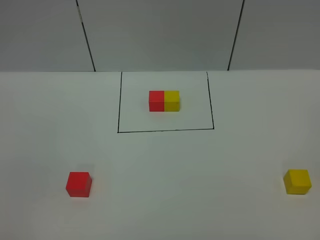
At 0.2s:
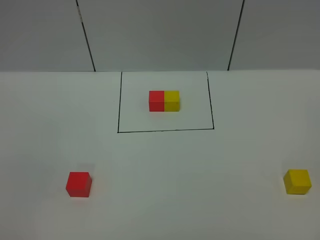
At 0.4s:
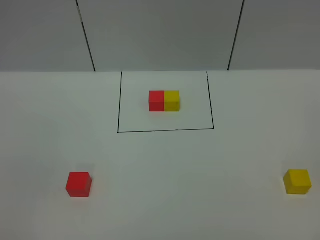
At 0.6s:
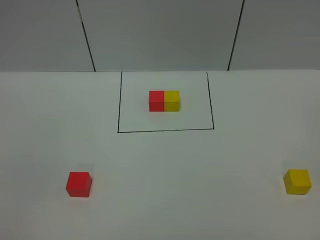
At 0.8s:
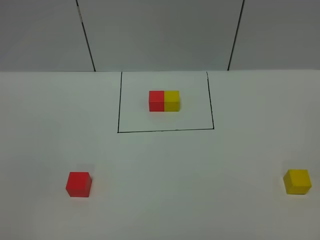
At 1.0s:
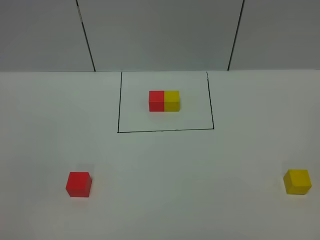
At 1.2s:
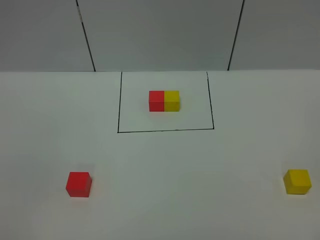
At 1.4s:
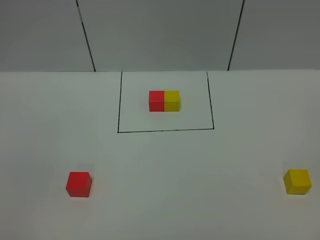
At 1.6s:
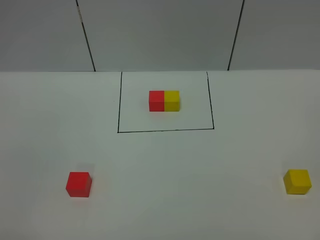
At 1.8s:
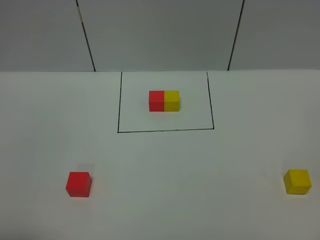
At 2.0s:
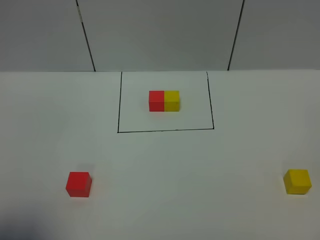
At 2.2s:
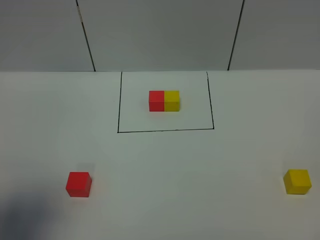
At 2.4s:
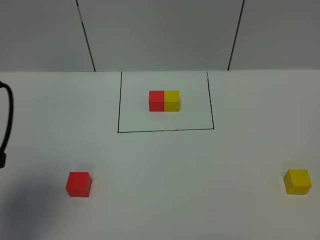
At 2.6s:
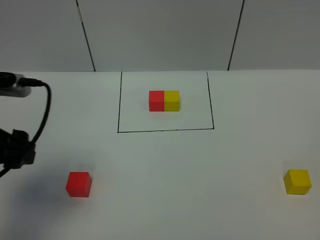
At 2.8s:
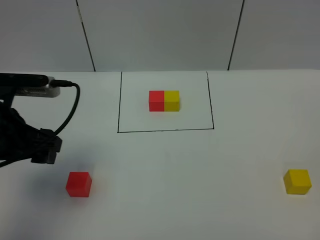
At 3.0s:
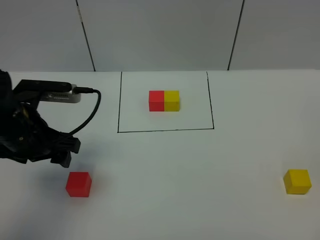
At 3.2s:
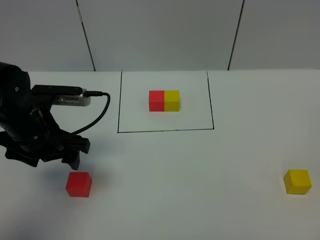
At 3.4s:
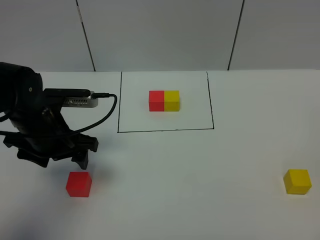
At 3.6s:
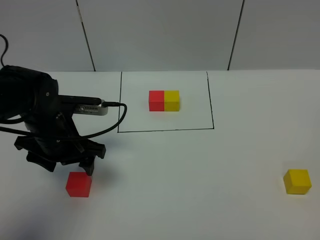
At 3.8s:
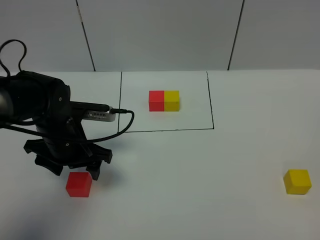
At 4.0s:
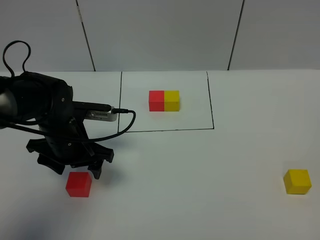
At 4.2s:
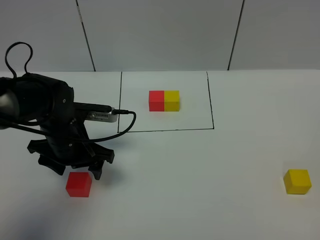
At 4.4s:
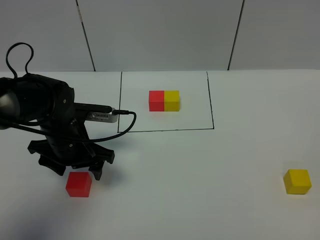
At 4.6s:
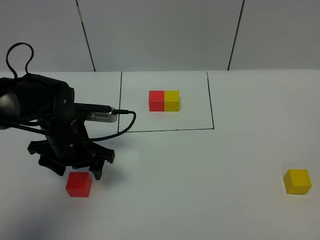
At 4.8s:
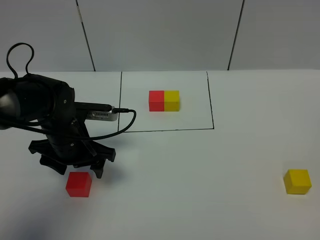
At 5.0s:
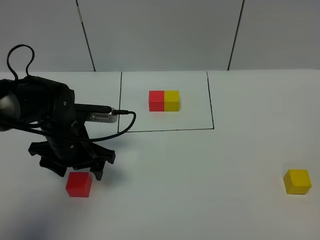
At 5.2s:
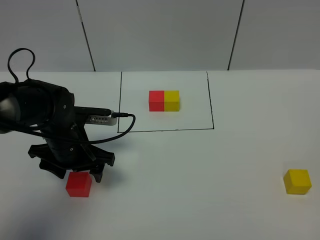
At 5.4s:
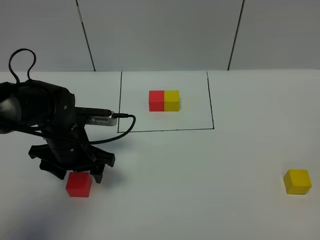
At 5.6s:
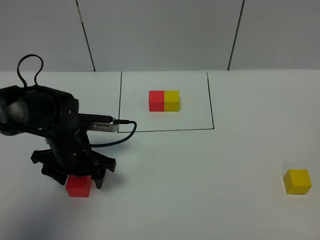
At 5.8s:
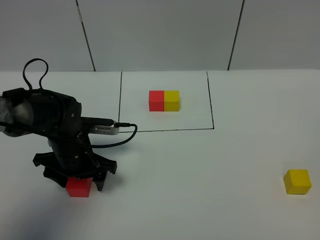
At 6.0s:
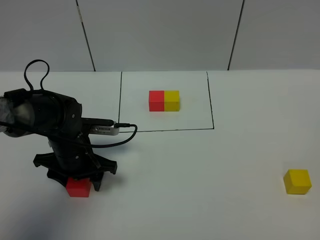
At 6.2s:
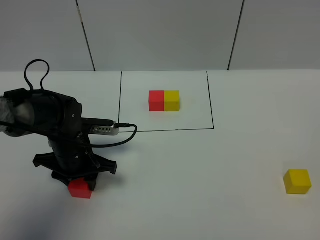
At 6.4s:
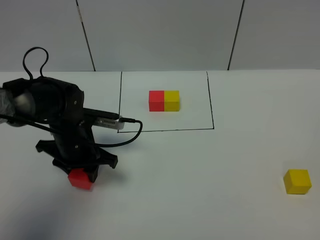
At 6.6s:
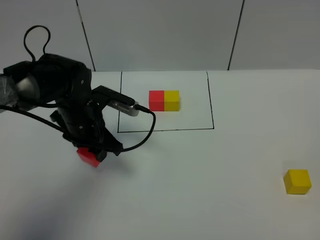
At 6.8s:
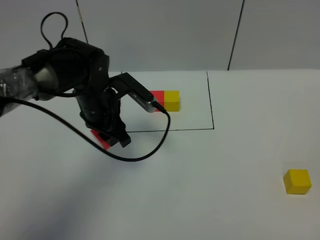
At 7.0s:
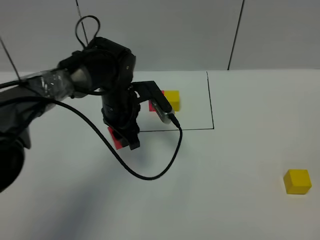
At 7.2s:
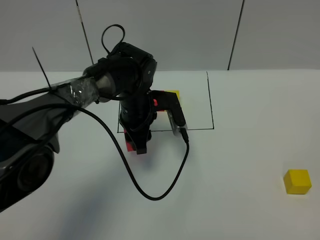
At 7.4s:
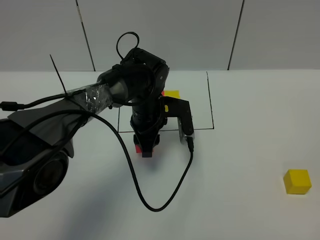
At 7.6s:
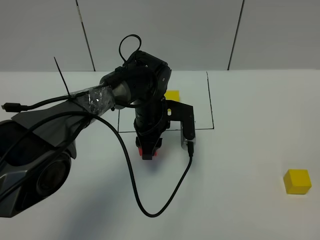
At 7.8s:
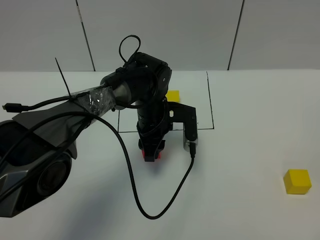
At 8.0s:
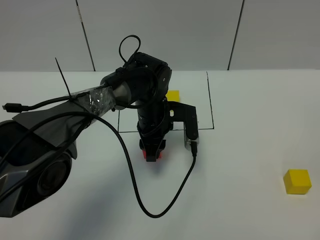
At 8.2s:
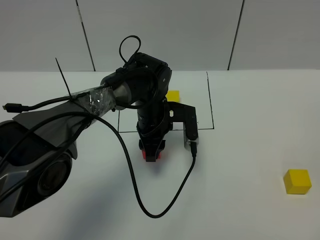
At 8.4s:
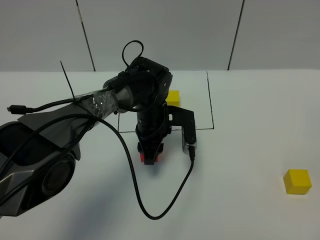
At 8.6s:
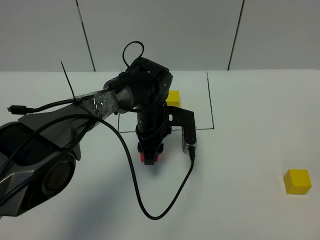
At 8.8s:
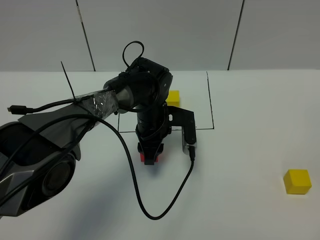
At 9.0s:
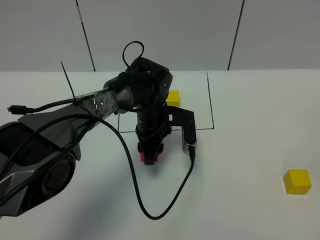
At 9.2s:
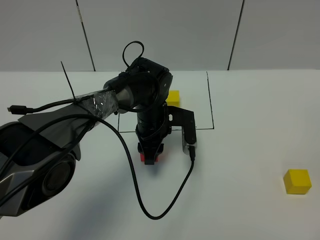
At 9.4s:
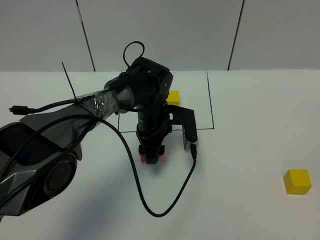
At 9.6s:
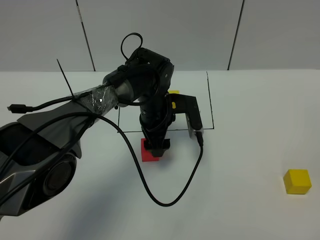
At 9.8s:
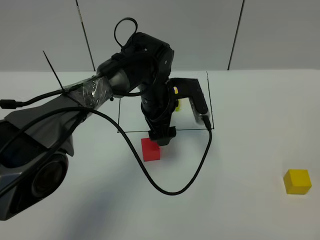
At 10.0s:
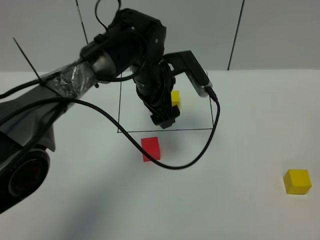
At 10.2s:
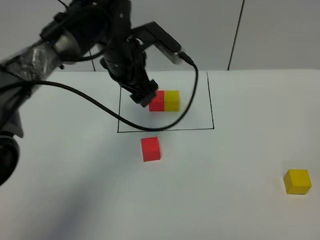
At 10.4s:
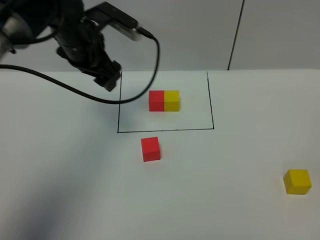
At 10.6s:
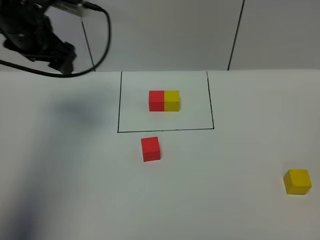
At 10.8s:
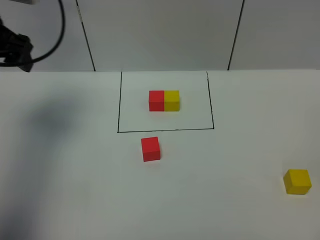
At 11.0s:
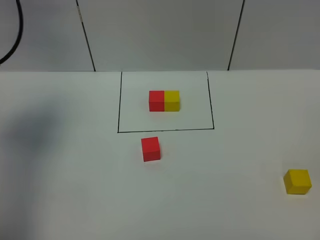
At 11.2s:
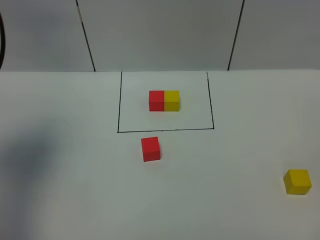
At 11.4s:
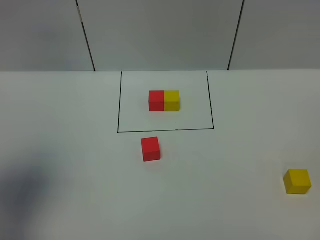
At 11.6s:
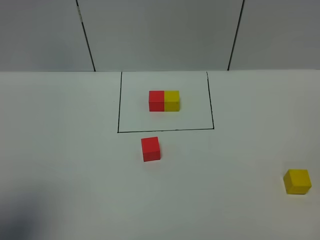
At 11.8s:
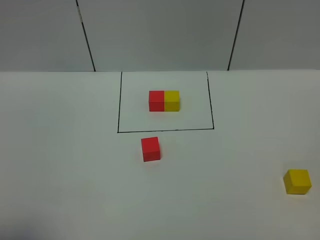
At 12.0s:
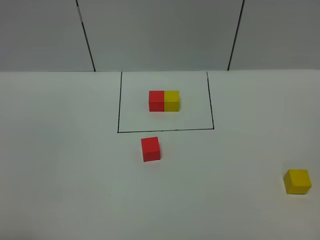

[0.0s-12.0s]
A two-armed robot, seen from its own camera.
Task of the whole recording: According to the building block template in front, assemble the scattered blocks together.
Step, 2.4s to 9.4s: Put the red cube in the center of the table.
1.6s to 3.0s: The left gripper moves forward, roughly 25 cm.
3.0s to 4.4s: The left gripper heads downward, covering some 10 cm.
4.4s to 6.0s: The left gripper closes up.
6.0s to 7.6s: The left gripper moves to the right and forward, approximately 15 cm, and closes up.
7.6s to 9.0s: The grippers move only a little.
9.0s to 10.4s: The left gripper travels upward and to the left by some 20 cm, and opens its fingers.
10.4s to 12.0s: The left gripper goes some 40 cm backward.

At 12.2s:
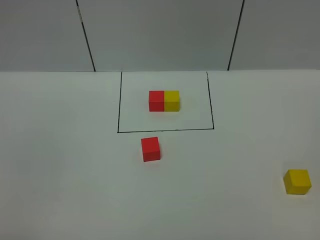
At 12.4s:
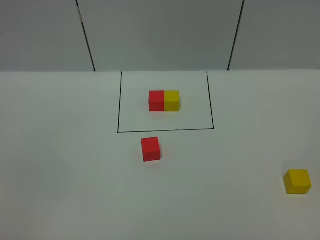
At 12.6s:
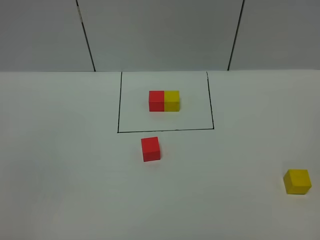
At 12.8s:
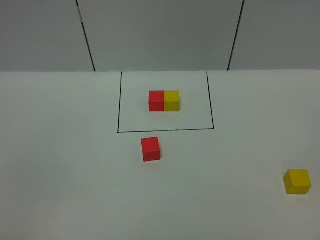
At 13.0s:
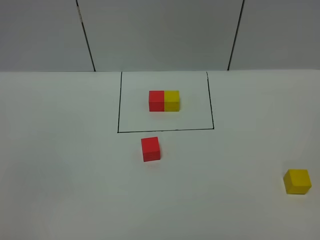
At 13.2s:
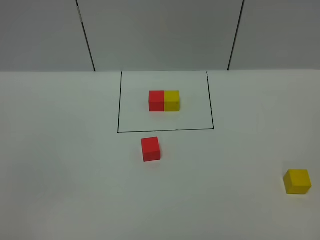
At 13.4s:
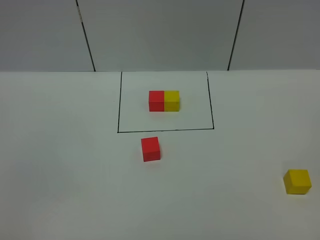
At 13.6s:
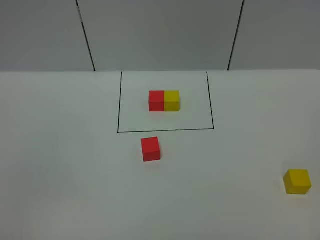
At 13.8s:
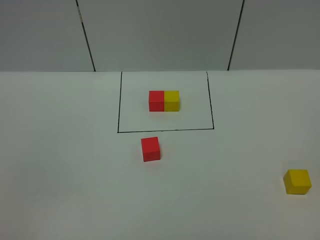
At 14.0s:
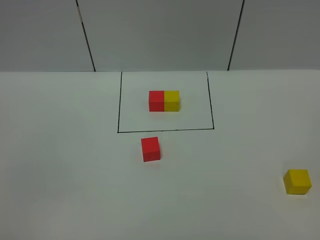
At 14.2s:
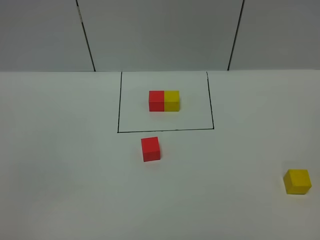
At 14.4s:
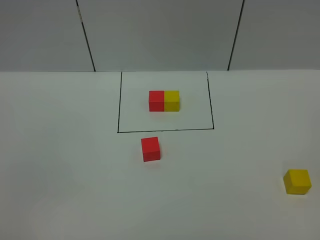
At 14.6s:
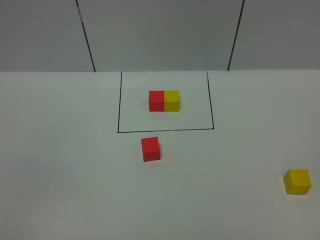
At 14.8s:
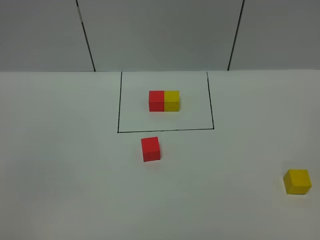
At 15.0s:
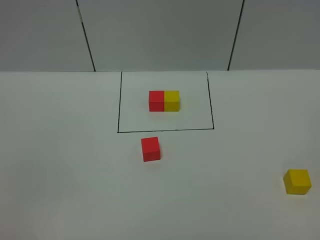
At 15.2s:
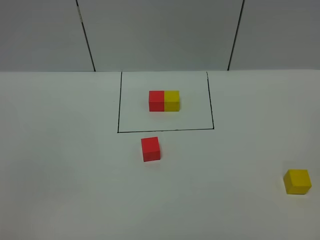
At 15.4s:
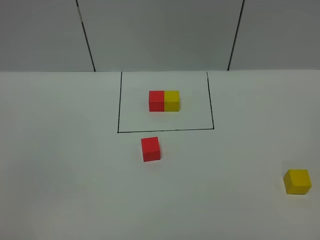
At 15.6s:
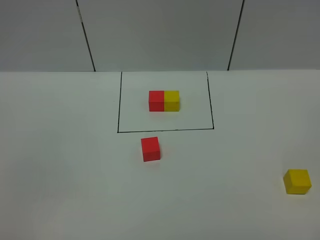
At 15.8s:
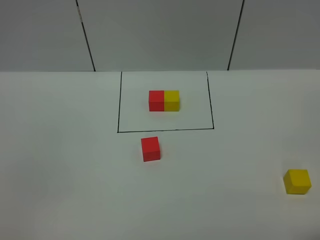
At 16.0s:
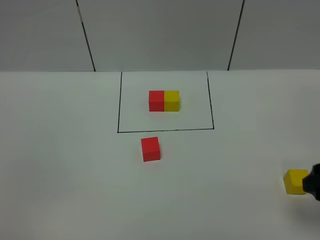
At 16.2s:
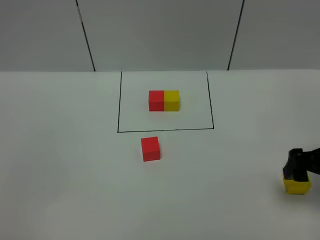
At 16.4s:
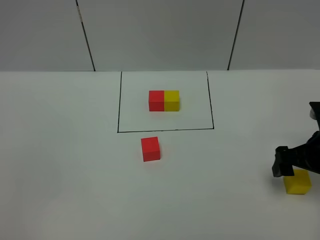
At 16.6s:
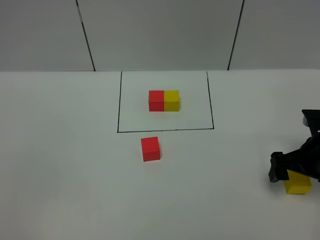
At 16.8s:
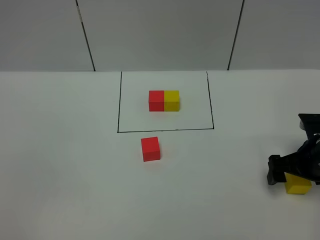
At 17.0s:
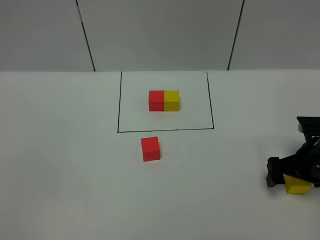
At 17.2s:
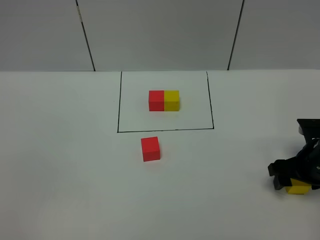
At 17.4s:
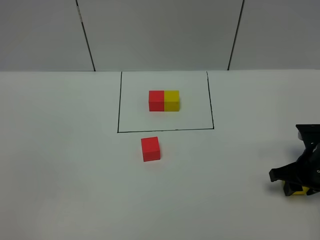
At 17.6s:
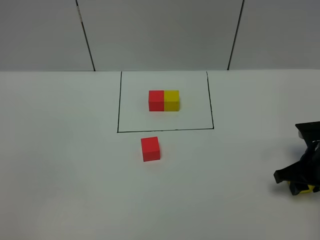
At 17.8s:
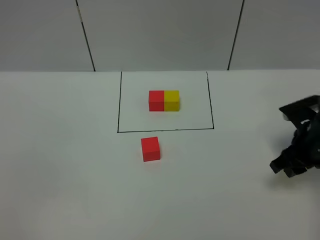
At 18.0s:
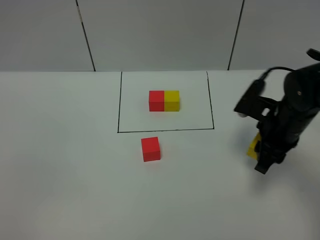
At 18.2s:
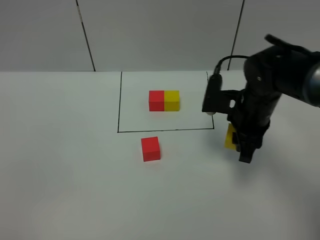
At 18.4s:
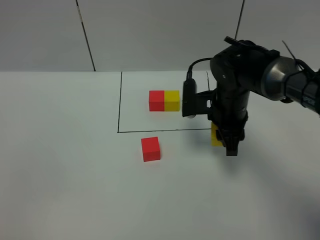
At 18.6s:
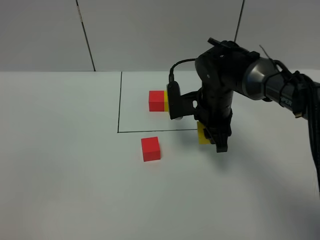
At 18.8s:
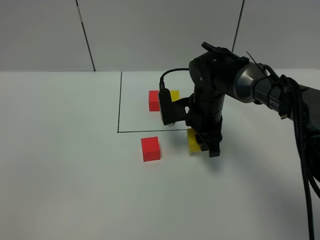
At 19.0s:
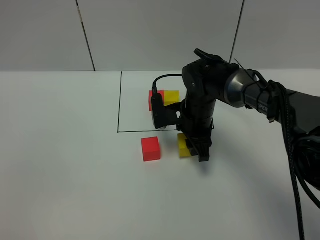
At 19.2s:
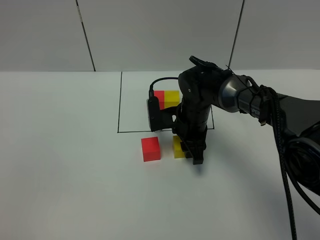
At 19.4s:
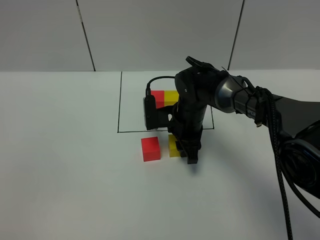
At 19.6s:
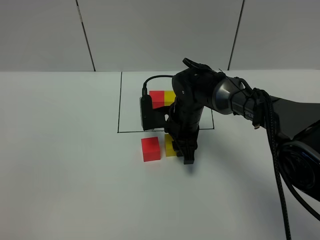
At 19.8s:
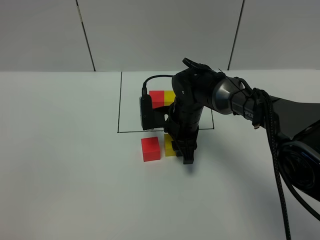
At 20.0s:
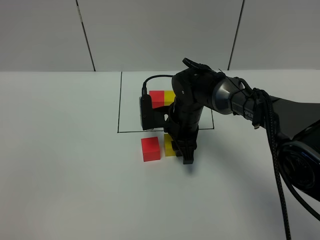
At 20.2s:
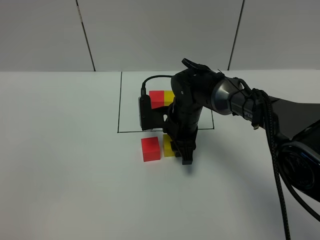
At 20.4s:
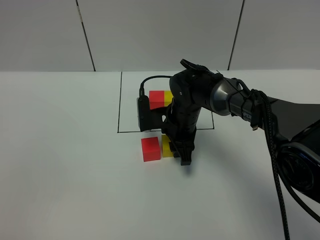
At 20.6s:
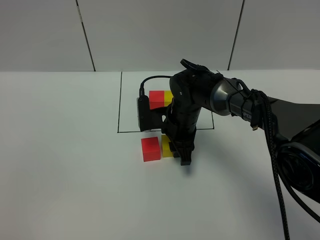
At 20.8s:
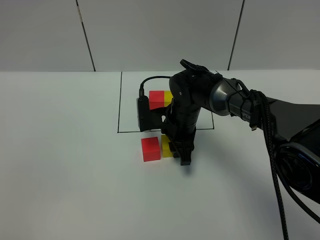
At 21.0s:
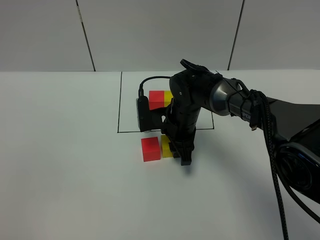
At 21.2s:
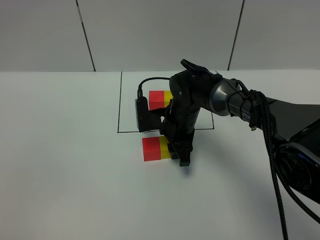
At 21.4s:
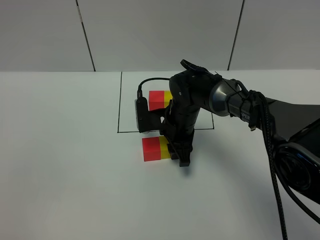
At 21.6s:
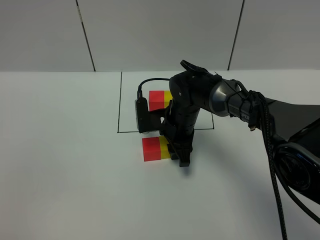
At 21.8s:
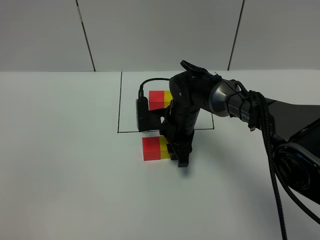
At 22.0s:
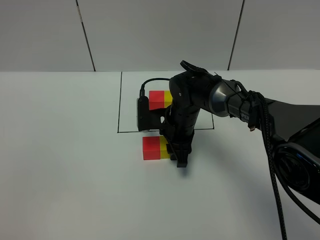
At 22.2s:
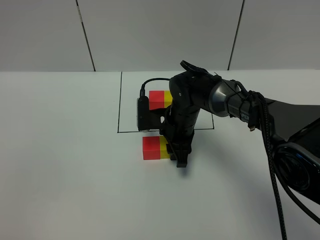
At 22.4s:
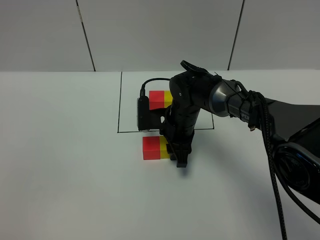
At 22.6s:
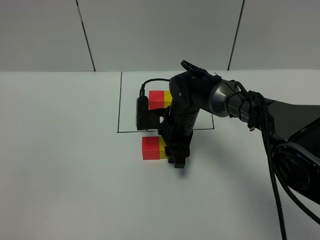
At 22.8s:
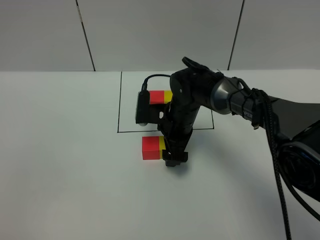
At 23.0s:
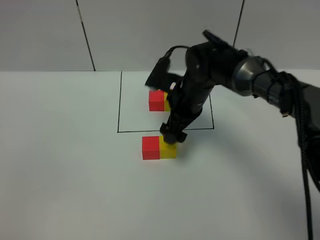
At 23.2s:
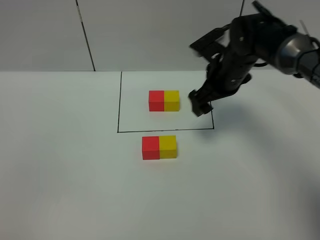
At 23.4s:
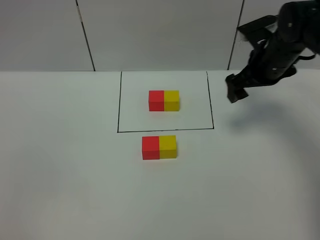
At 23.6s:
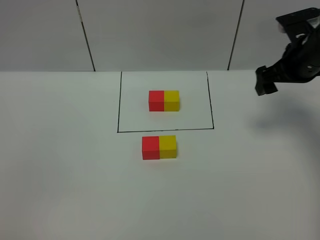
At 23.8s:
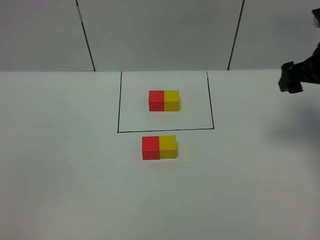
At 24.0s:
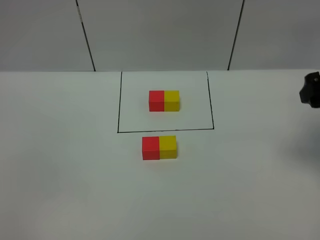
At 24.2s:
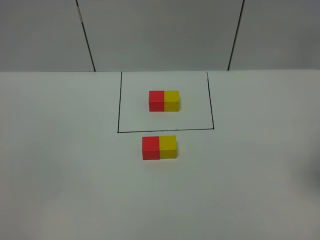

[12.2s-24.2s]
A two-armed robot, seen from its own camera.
Task of the whole recording: According to the building block template in front, assemble the scattered blocks together.
Step, 12.2s to 22.8s: Put the yellow cube on the right of the red cube.
13.8s to 15.2s: The two grippers keep their place.
15.2s to 16.6s: The right gripper travels forward and downward by roughly 30 cm, and opens its fingers.
16.6s to 18.2s: The right gripper shifts some 15 cm to the left and forward, and closes.
18.2s to 19.8s: The right gripper is displaced to the left and downward by approximately 15 cm.
19.8s to 21.2s: Both grippers stay about where they are.
21.2s to 22.6s: There are only small adjustments of the grippers.
22.6s to 24.2s: The right gripper moves to the right, upward and backward, approximately 40 cm, and opens its fingers.
